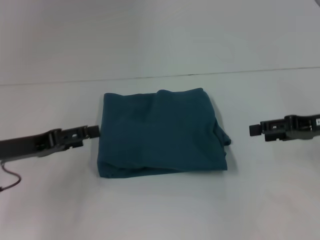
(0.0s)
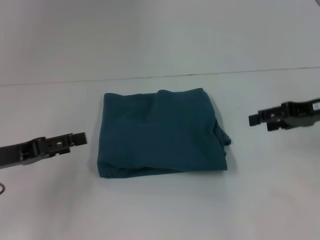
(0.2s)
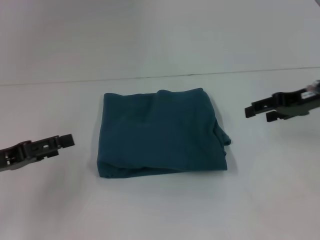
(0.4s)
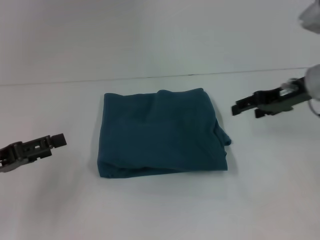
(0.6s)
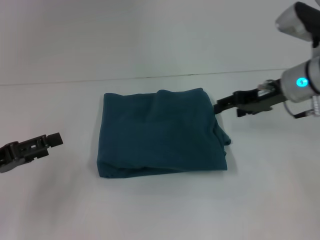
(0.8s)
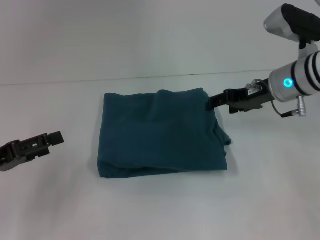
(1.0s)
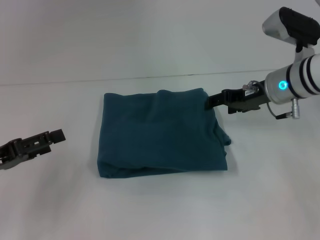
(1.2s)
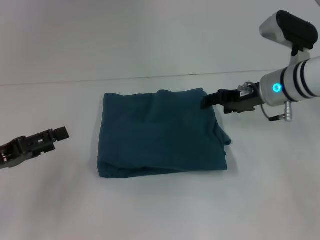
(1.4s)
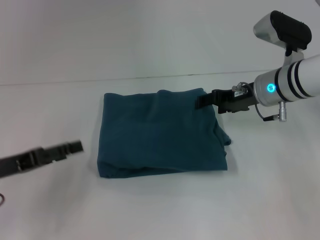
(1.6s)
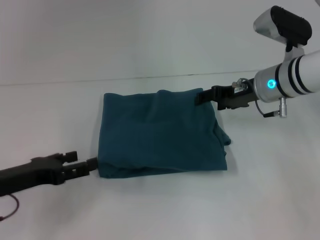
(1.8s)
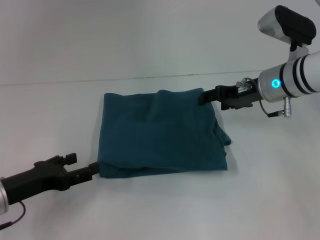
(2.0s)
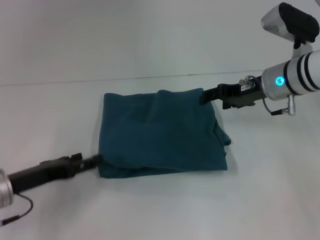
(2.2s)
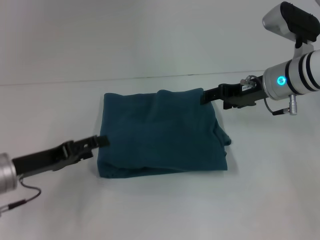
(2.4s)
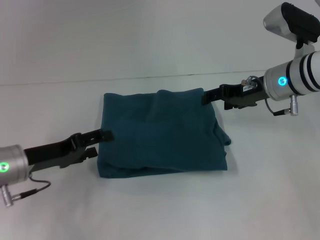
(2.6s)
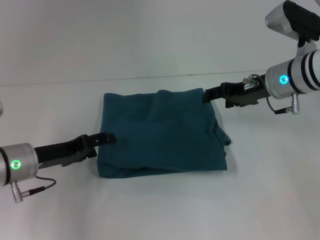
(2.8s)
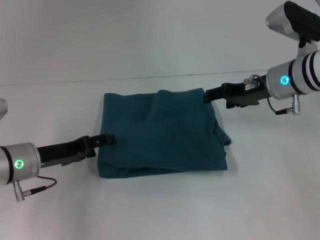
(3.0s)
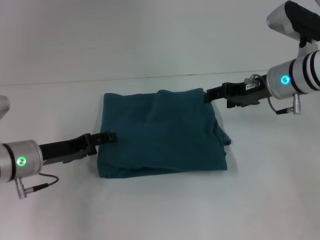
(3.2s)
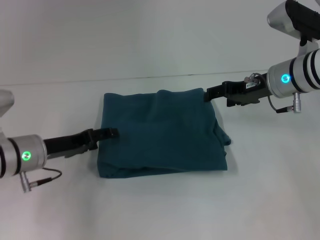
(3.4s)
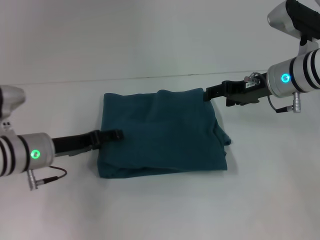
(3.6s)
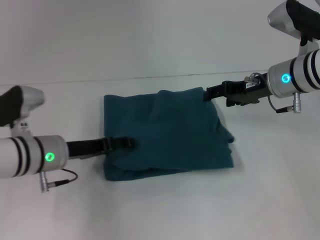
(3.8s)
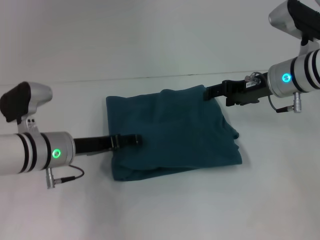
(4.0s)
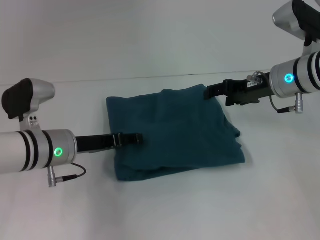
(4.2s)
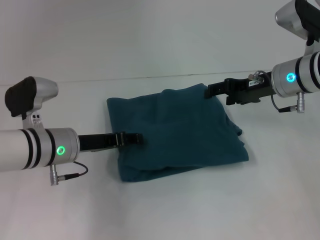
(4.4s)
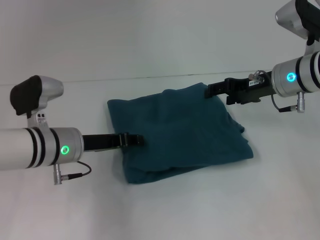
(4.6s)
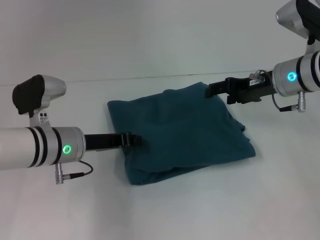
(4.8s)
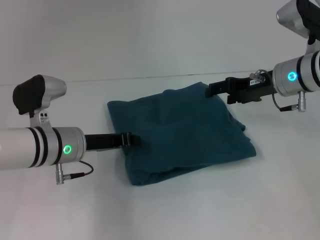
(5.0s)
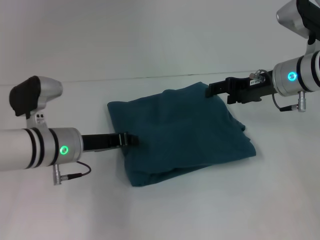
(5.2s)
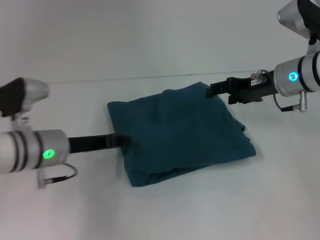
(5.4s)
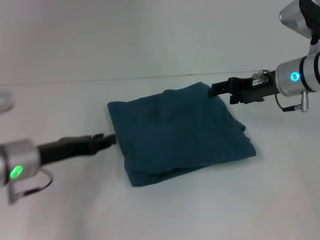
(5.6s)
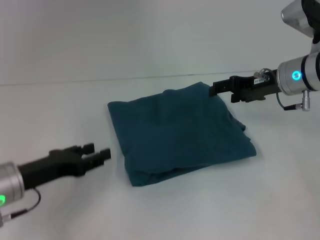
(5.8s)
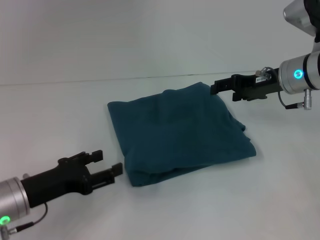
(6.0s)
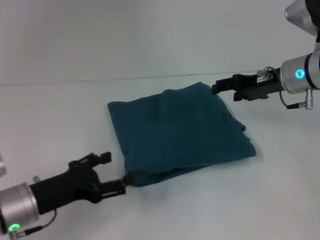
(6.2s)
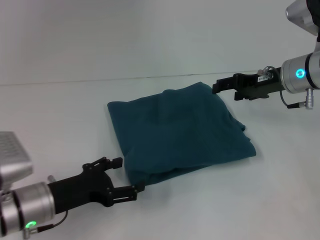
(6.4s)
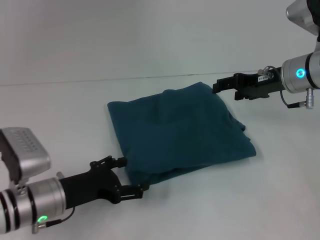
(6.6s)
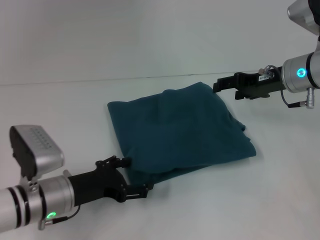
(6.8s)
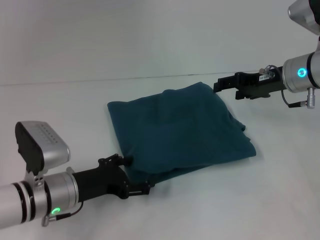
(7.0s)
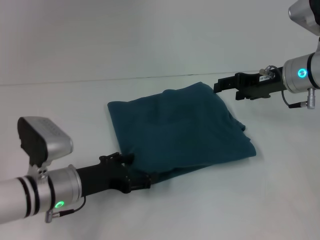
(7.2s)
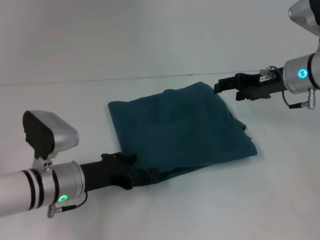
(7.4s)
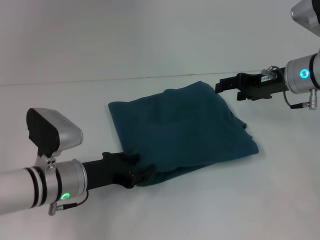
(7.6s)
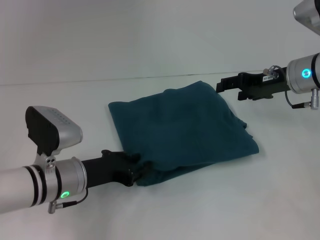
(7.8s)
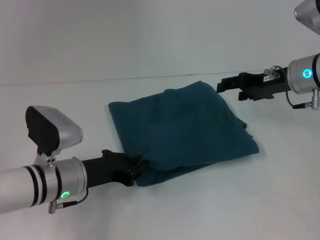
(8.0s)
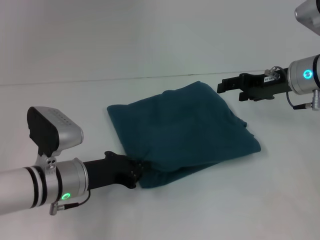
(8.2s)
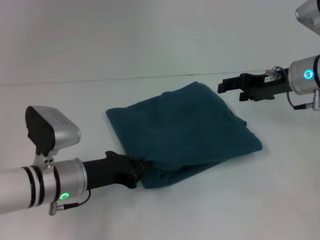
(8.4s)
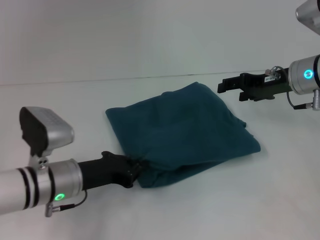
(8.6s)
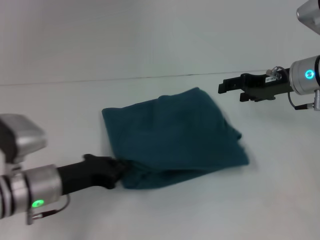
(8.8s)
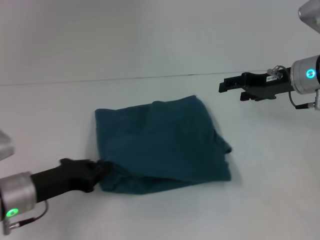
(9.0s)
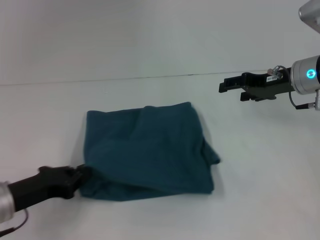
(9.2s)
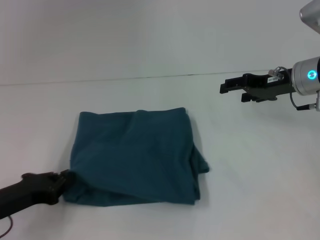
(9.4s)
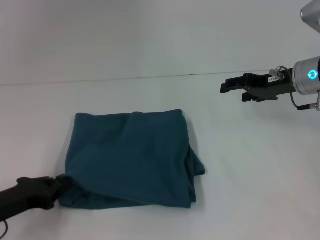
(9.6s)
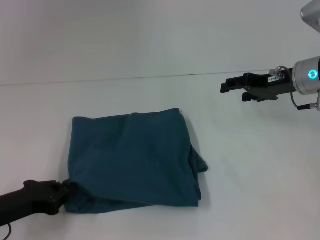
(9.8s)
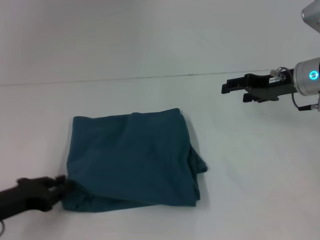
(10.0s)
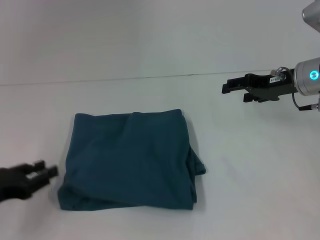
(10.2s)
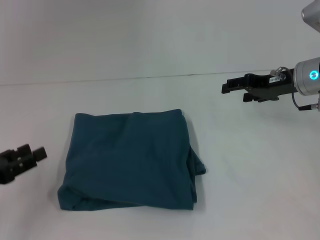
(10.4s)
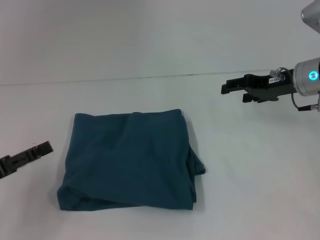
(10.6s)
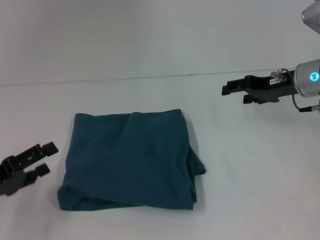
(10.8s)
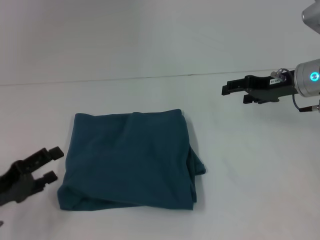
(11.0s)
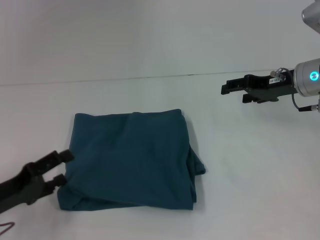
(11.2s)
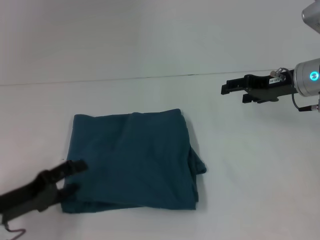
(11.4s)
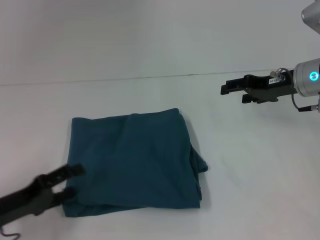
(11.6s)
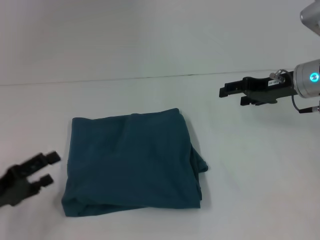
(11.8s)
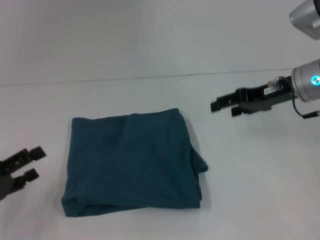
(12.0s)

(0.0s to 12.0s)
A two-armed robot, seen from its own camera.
0.0s - 1.6s: The right gripper heads to the left and forward, covering about 15 cm.
1.6s - 3.0s: The left gripper goes about 10 cm to the right and forward.
3.0s - 4.4s: The left gripper is displaced to the right by about 5 cm.
4.4s - 6.0s: The left gripper travels backward and to the left by roughly 10 cm, and closes, then opens again.
6.0s - 7.6s: The left gripper goes approximately 5 cm to the right.
7.6s - 9.0s: The left gripper heads to the left, covering approximately 5 cm, and closes up.
9.0s - 10.4s: The left gripper travels to the left by about 10 cm, and opens its fingers.
10.4s - 12.0s: The left gripper opens.

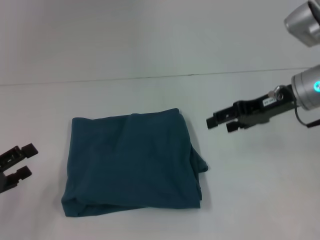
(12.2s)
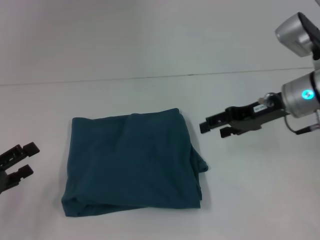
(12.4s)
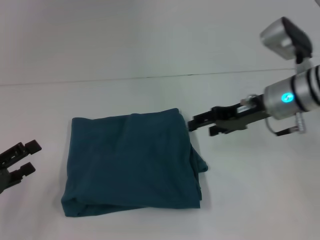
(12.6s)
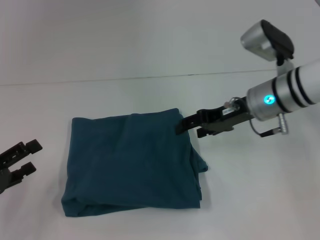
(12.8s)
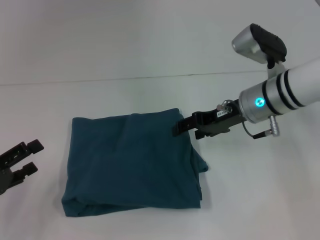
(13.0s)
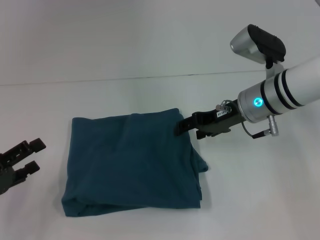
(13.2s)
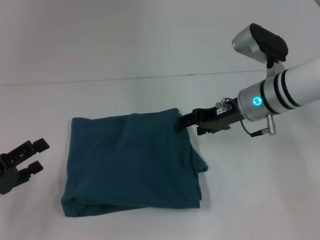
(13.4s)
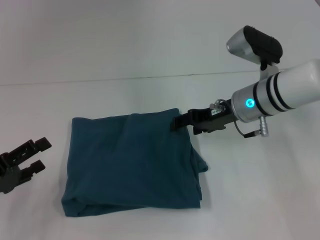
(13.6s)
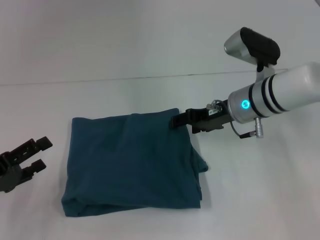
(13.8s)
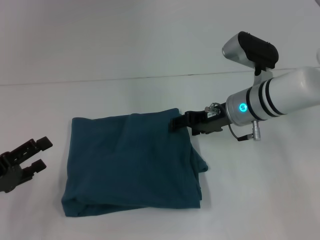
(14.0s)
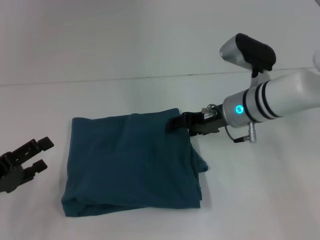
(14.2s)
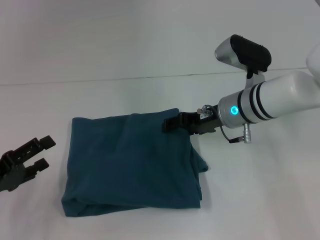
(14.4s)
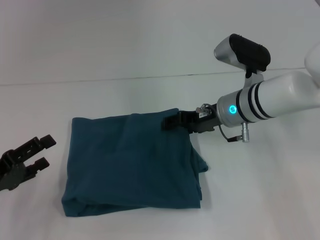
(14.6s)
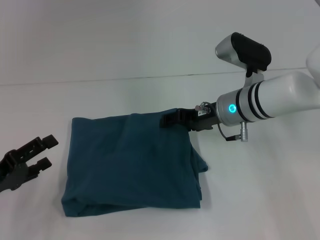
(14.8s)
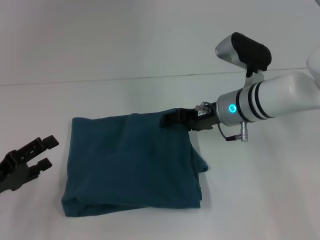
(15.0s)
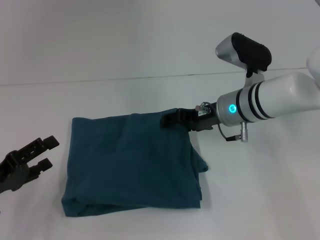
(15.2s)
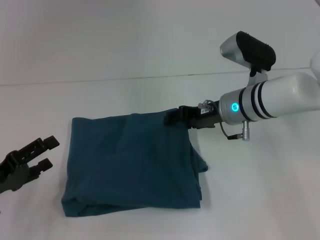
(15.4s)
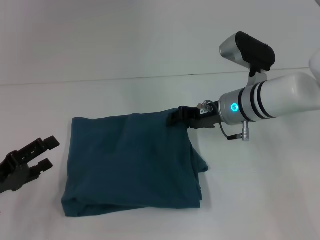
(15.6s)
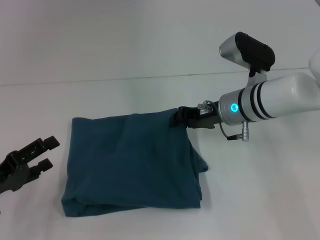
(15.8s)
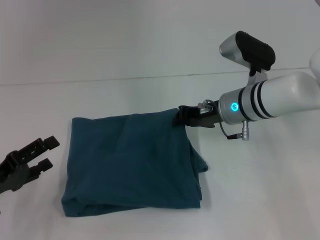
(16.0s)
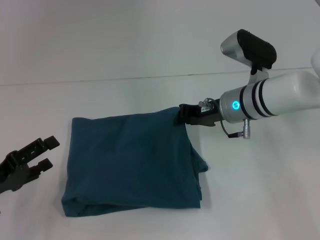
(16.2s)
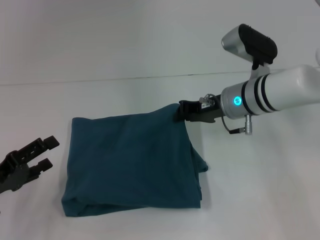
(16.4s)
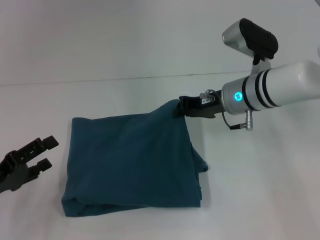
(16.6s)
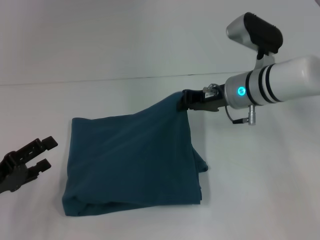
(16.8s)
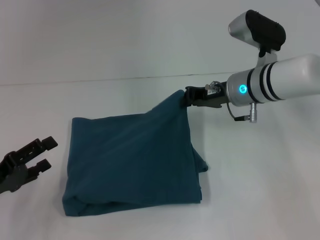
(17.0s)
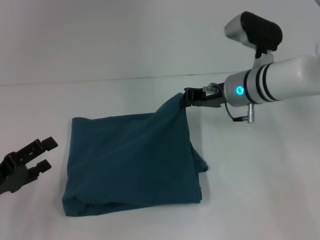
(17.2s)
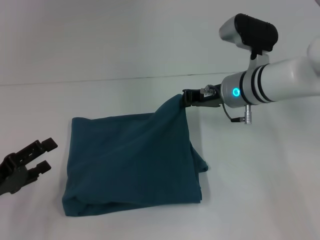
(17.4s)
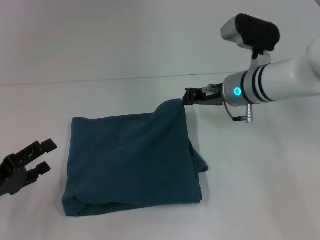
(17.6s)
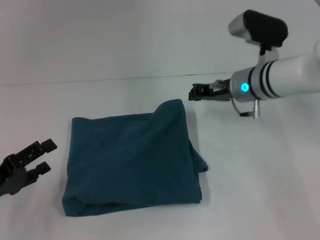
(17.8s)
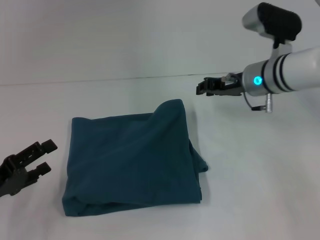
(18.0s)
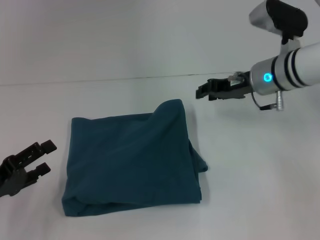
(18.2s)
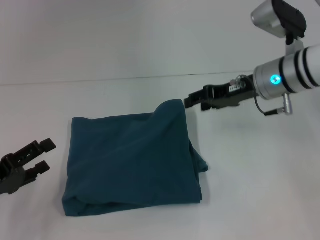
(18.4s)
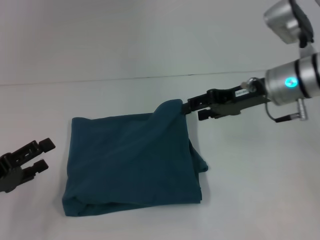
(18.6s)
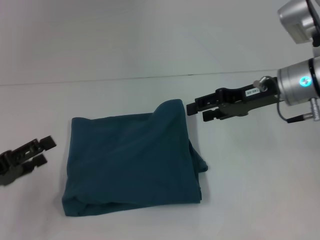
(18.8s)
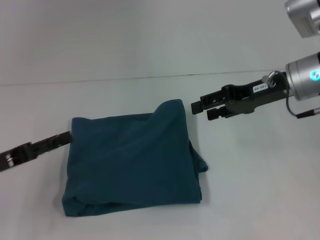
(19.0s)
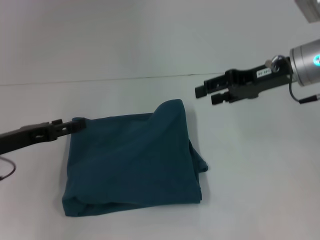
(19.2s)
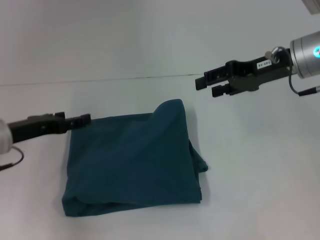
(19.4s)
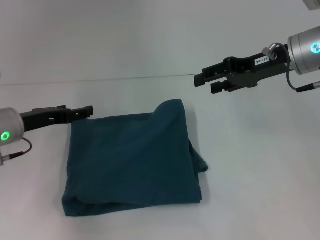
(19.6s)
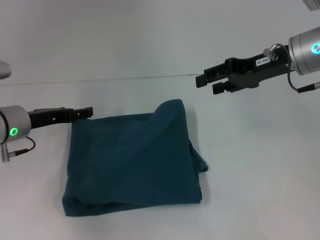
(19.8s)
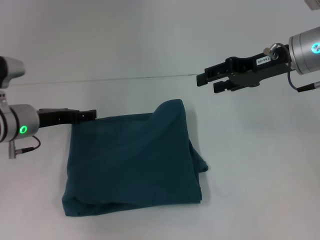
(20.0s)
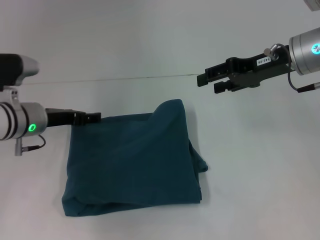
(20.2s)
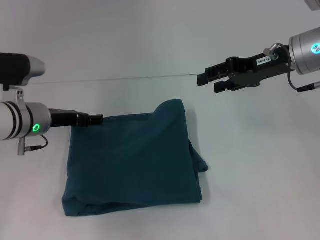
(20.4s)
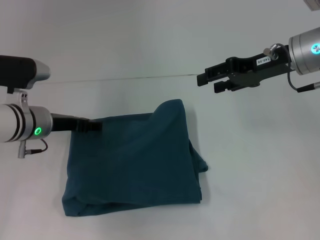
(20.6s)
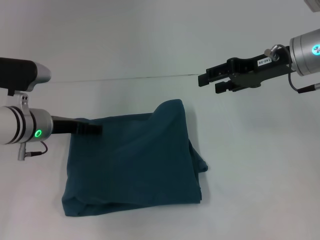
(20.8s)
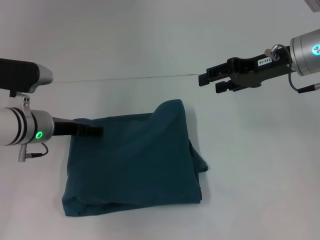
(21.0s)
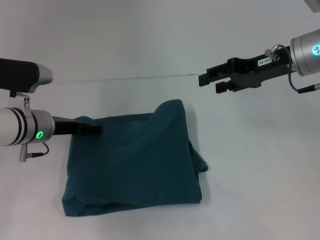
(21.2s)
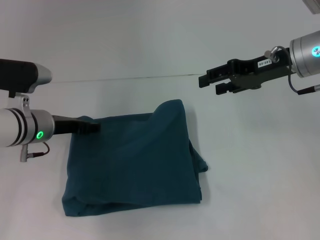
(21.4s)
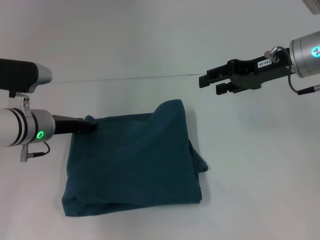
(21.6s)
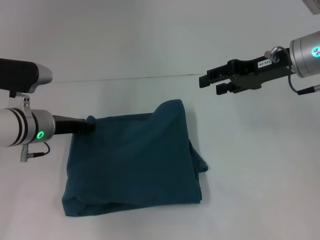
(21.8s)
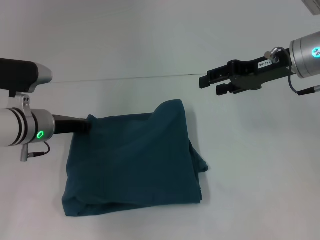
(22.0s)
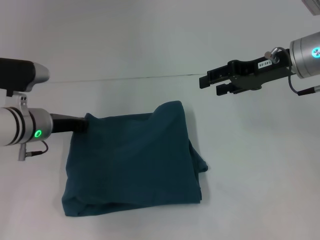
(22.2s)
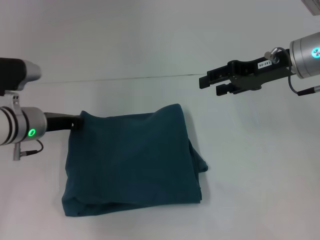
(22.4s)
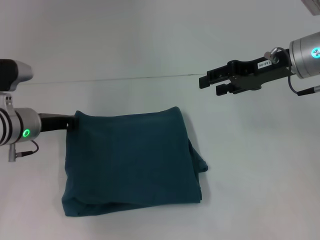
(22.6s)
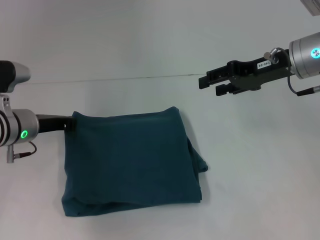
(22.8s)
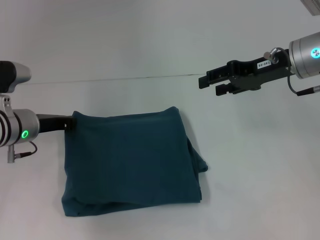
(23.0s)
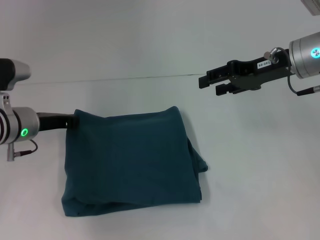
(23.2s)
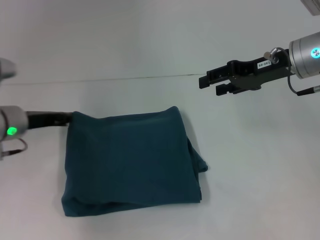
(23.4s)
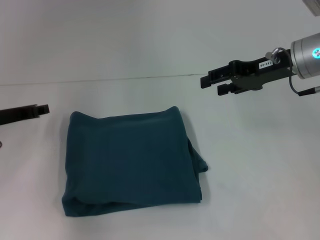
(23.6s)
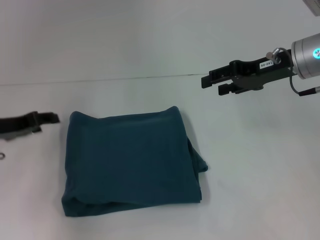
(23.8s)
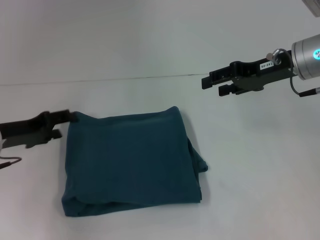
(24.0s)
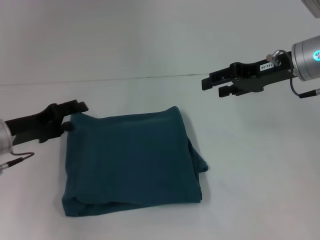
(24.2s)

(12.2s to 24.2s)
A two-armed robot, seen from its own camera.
12.2s - 13.8s: The right gripper shifts approximately 10 cm to the left and downward.
13.8s - 15.2s: The grippers move only a little.
15.2s - 16.6s: The right gripper closes its fingers.
16.6s - 18.2s: The right gripper moves some 5 cm.
18.2s - 19.8s: The right gripper goes about 5 cm upward, and opens its fingers. Meanwhile the left gripper goes about 15 cm forward and to the right.
19.8s - 21.2s: The grippers move only a little.
21.2s - 22.6s: The left gripper closes its fingers.
22.6s - 24.2s: The left gripper changes place by about 5 cm, and opens its fingers.
